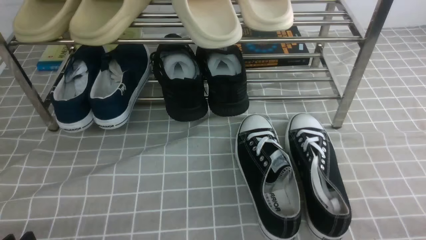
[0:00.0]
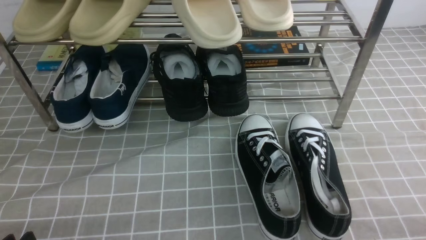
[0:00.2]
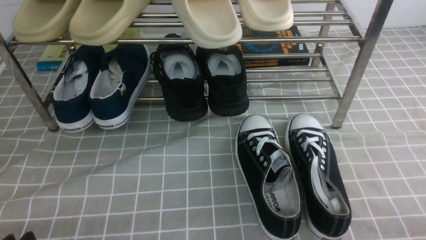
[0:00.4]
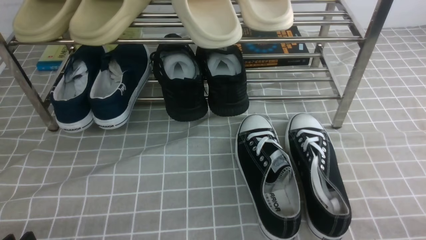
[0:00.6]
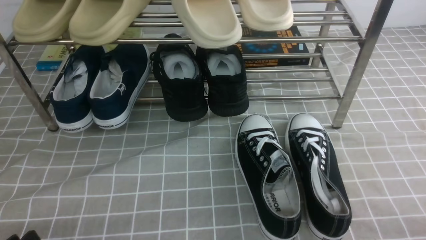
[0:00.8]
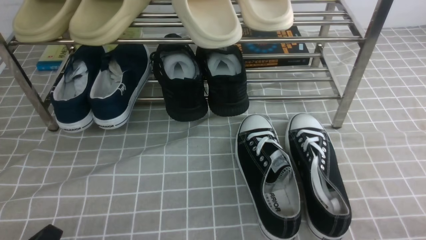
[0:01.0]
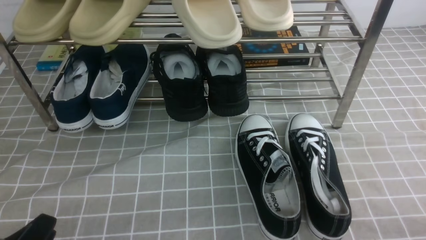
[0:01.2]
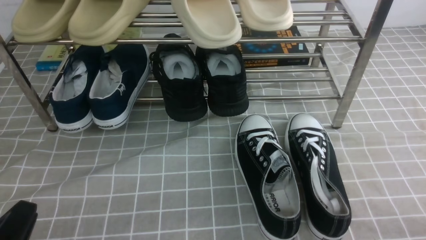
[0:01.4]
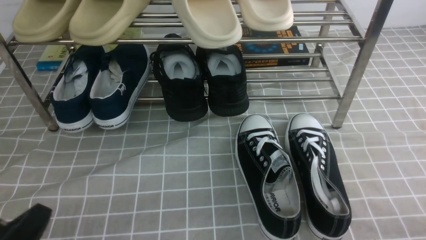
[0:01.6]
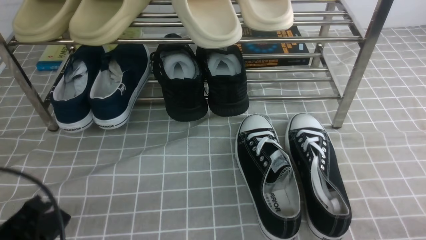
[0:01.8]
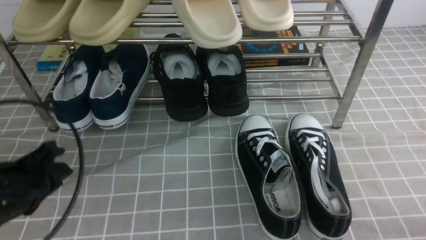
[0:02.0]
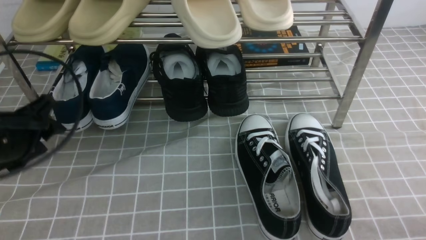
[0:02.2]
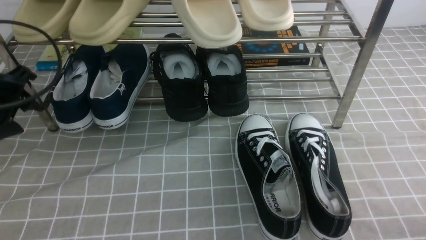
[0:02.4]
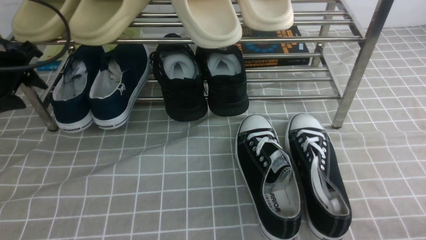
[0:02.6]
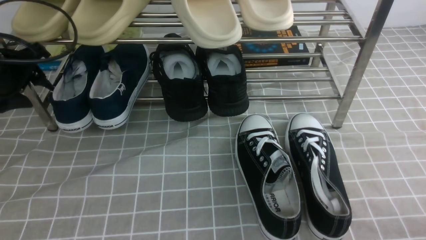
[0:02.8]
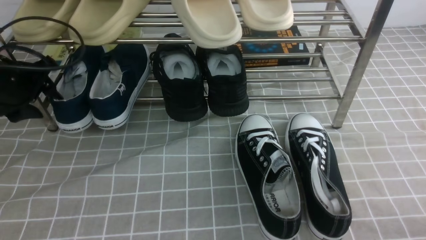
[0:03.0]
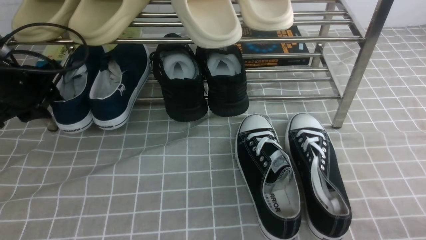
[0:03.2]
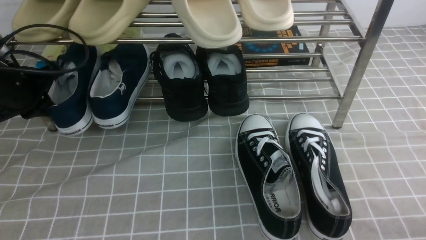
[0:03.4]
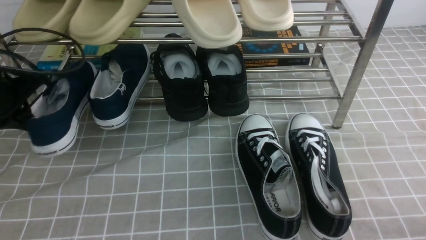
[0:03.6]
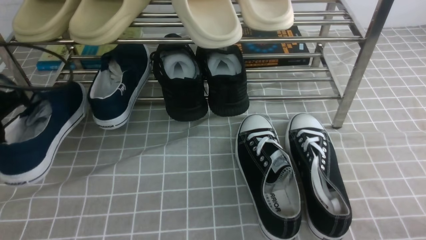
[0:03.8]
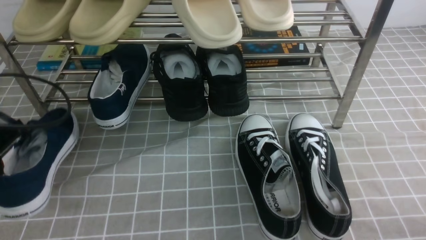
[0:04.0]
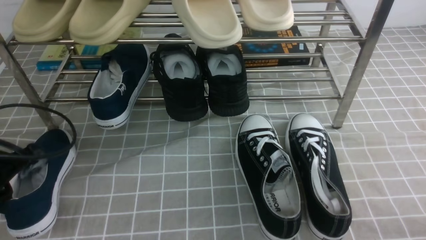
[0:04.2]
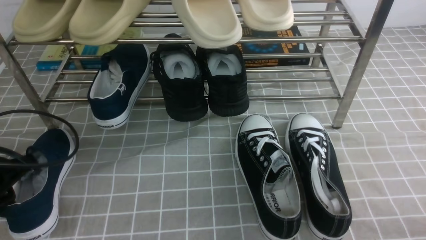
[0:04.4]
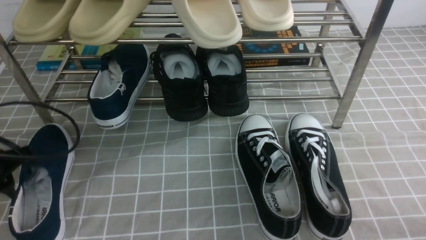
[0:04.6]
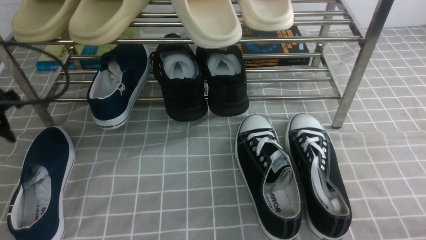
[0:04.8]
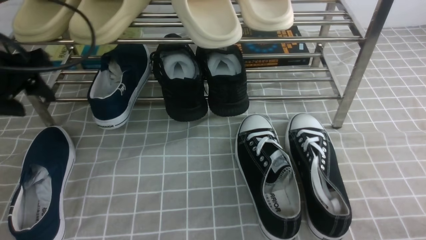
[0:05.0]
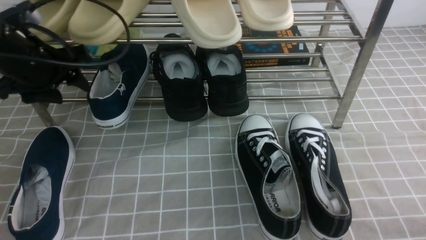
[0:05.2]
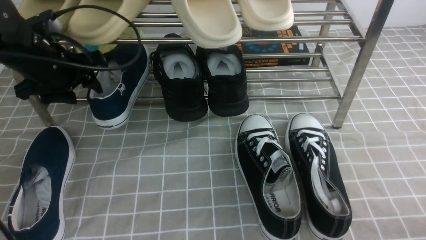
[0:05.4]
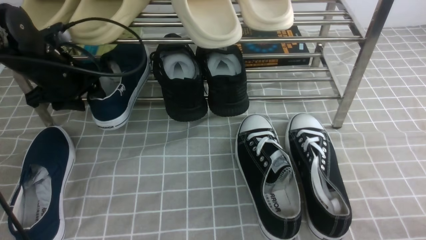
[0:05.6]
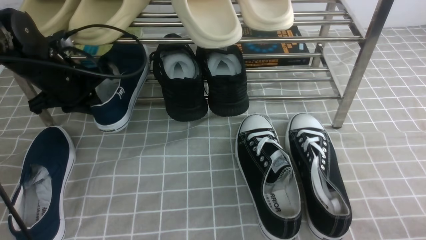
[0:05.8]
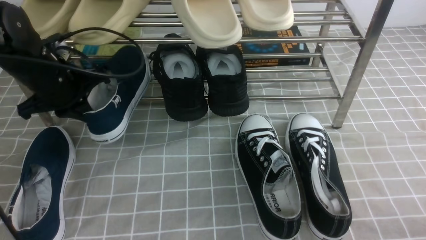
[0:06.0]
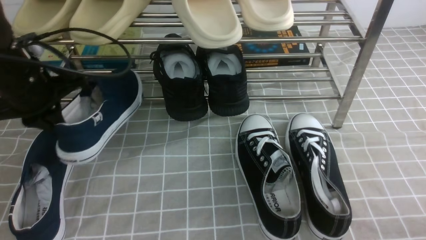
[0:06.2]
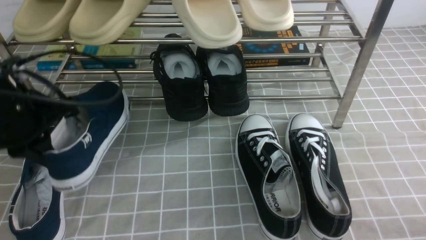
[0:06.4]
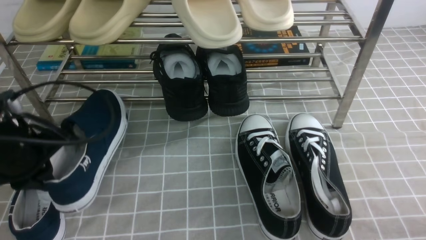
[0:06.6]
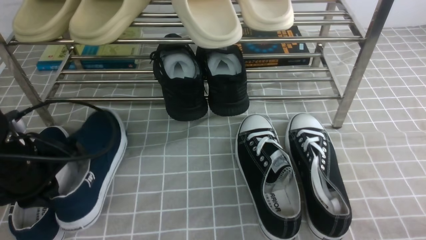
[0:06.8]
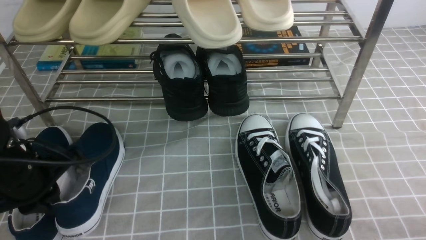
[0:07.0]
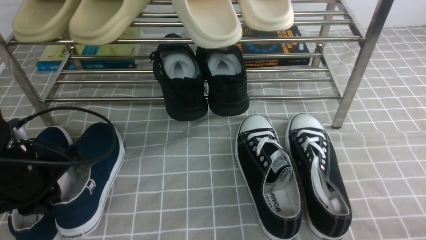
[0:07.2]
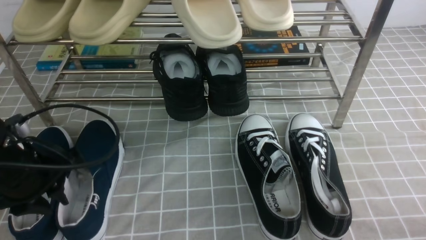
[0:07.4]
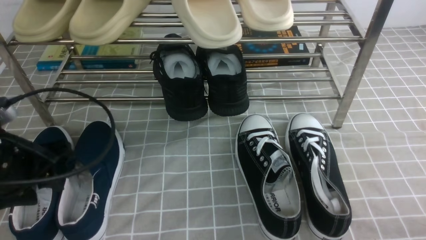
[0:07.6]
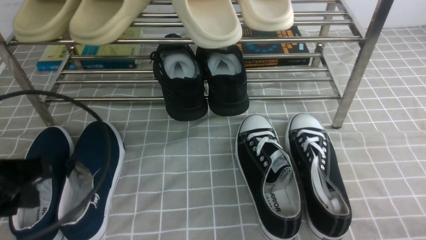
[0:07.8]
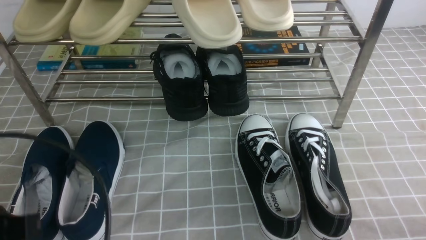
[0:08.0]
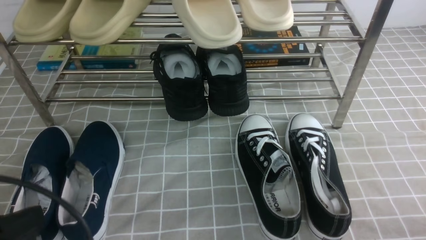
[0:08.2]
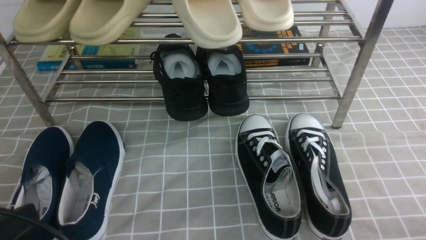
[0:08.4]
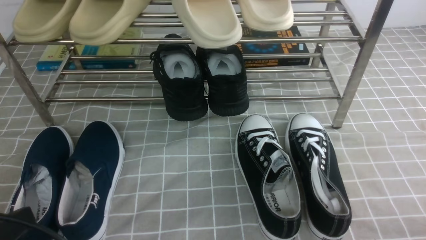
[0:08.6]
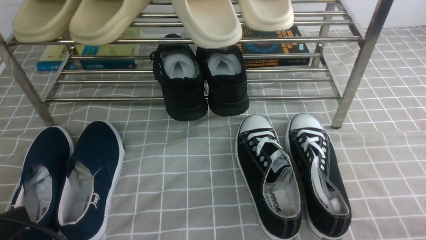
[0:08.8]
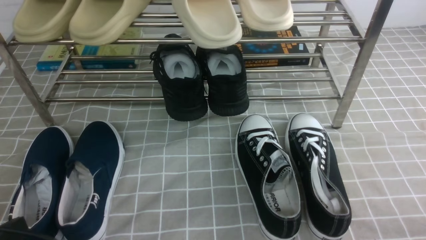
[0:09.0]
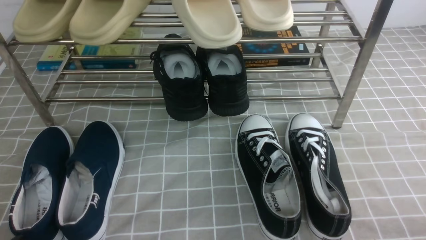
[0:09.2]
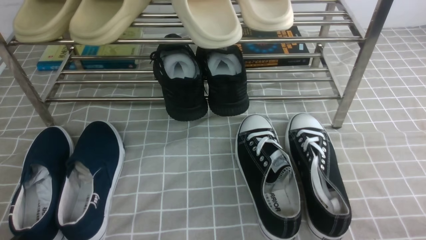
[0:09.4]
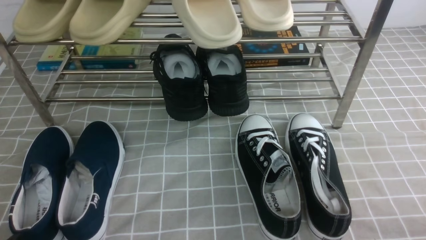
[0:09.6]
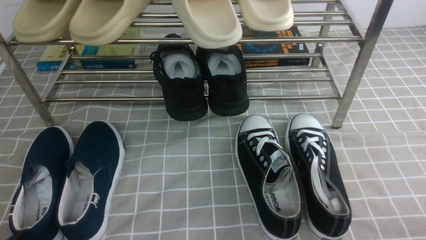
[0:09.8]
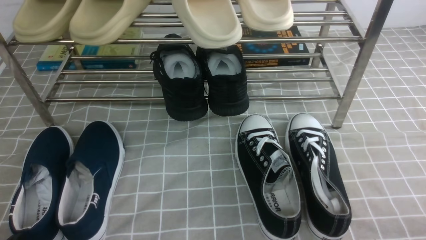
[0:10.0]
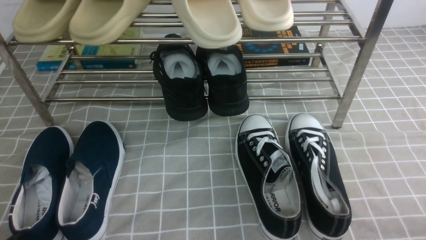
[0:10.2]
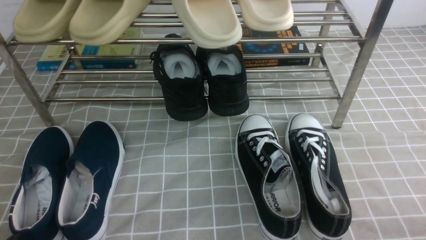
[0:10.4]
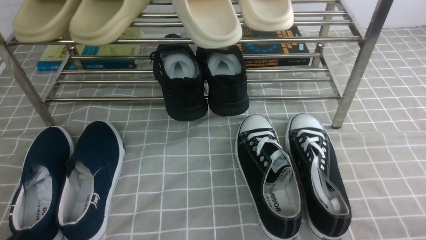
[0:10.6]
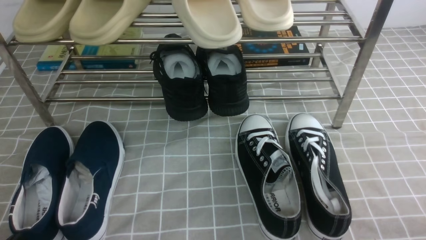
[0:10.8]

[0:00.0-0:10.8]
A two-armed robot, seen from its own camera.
Step, 0:00.0 to 0:03.4: use the left arm to clamp a shoe on the left side of the shoe rack.
Step, 0:03.6 to 0:04.6: Use your left arm to remove the clamped shoe from the shoe rack and put it down.
Step, 0:05.0 to 0:06.0: use the left arm to clamp a shoe on the left side of the shoe rack.
Step, 0:06.2 to 0:07.6: Use your left arm to remove the clamped shoe from the shoe rack and put it down.
0:00.0 to 0:01.6: The left gripper closes up.
0:01.6 to 0:03.0: The left gripper is displaced forward by some 30 cm, and opens up.
0:03.0 to 0:04.6: The left gripper goes some 10 cm backward, and closes and opens again.
0:04.6 to 0:06.2: The left gripper shifts roughly 10 cm forward and to the right, and closes its fingers.
0:06.2 to 0:07.8: The left gripper is displaced backward by some 15 cm, and opens up.
0:07.8 to 0:09.2: The left gripper moves downward and backward, roughly 15 cm, and closes its fingers.

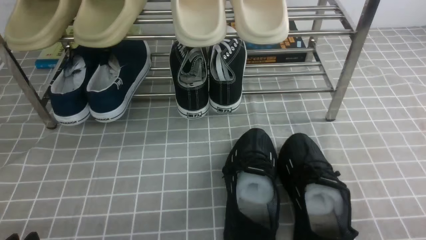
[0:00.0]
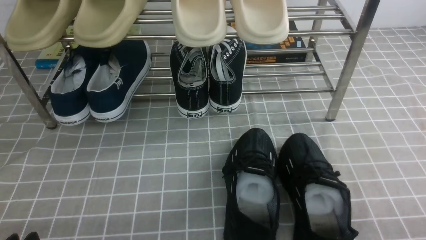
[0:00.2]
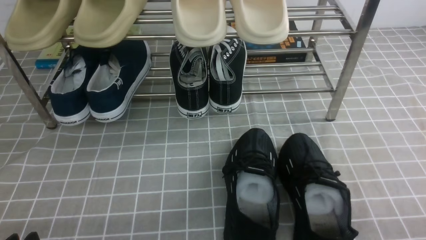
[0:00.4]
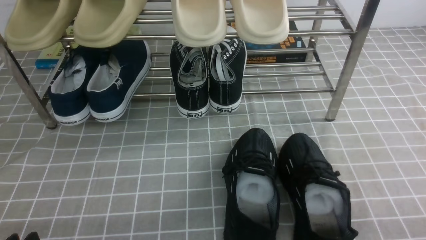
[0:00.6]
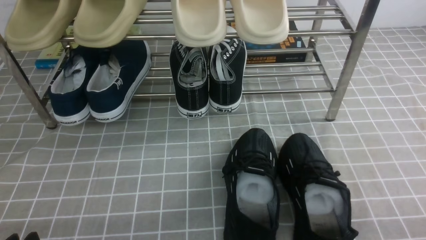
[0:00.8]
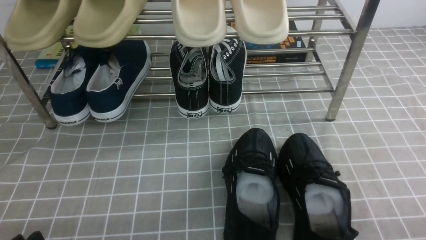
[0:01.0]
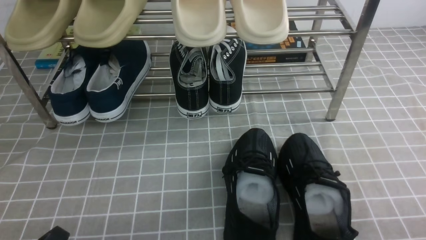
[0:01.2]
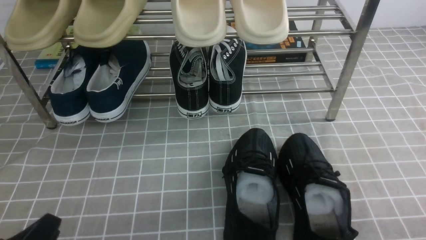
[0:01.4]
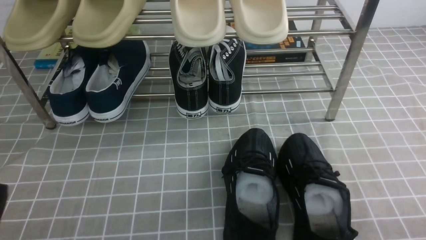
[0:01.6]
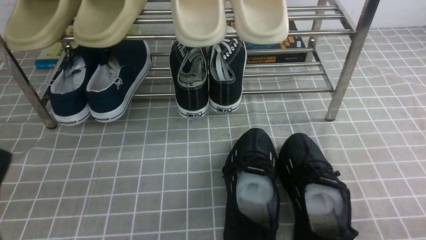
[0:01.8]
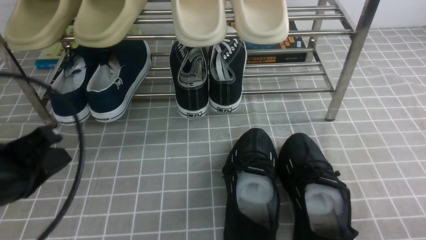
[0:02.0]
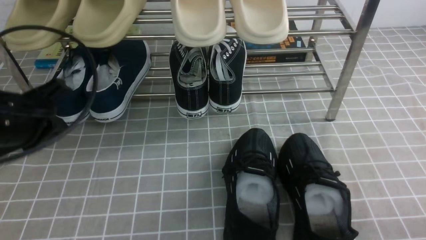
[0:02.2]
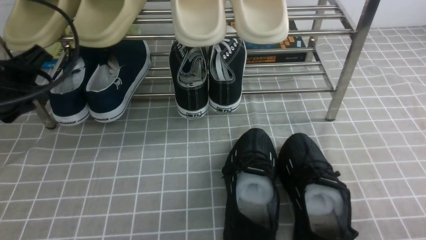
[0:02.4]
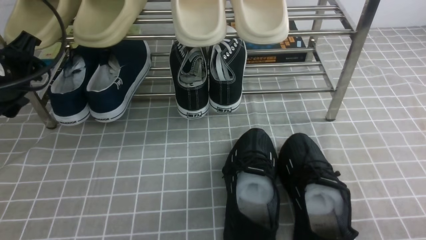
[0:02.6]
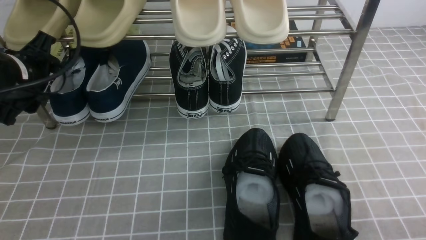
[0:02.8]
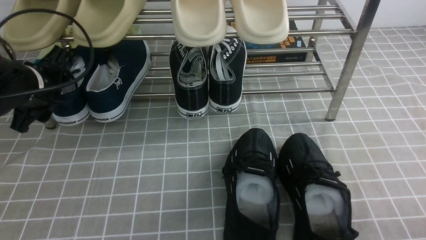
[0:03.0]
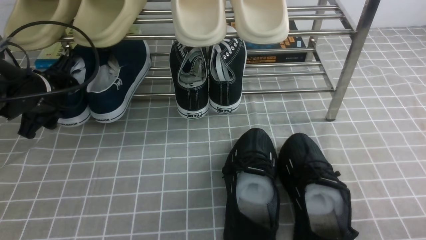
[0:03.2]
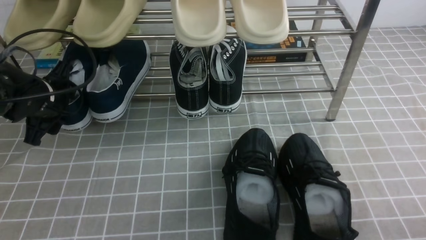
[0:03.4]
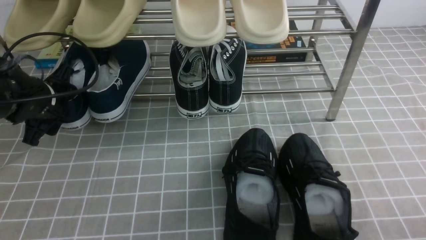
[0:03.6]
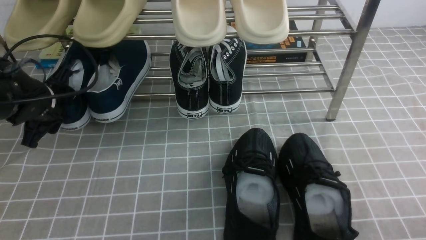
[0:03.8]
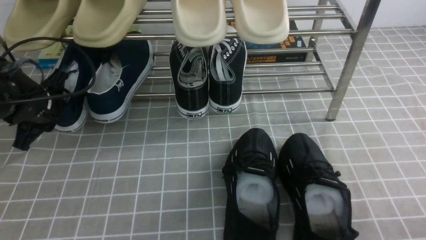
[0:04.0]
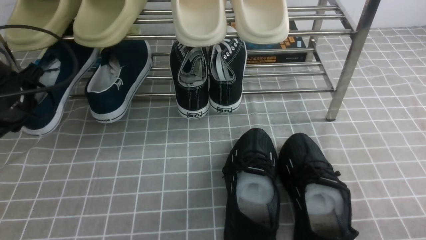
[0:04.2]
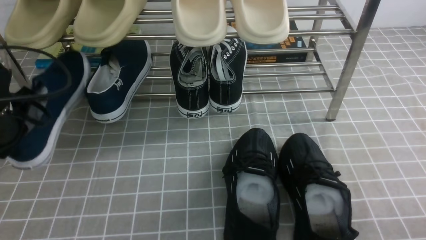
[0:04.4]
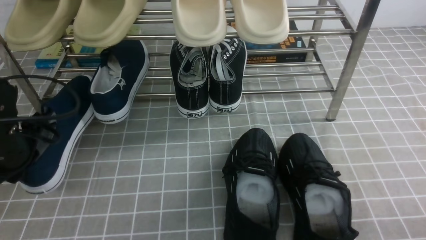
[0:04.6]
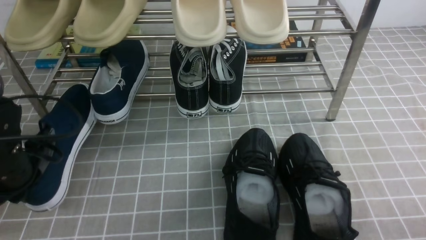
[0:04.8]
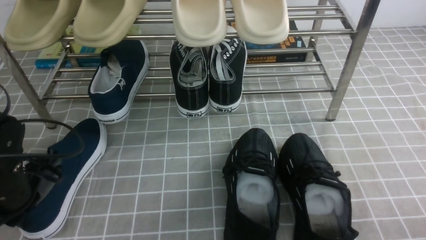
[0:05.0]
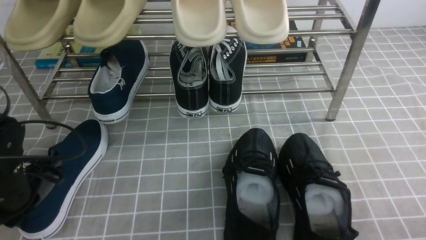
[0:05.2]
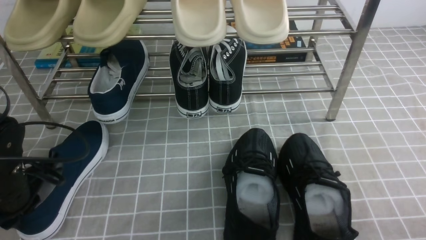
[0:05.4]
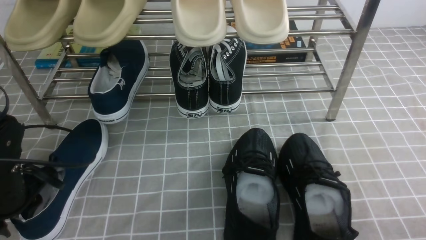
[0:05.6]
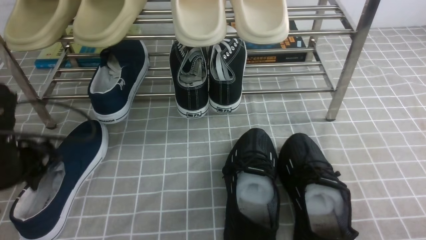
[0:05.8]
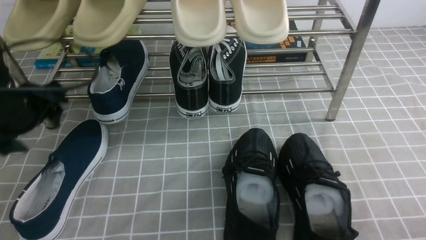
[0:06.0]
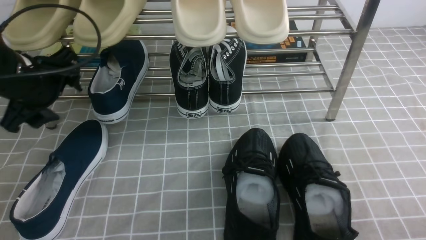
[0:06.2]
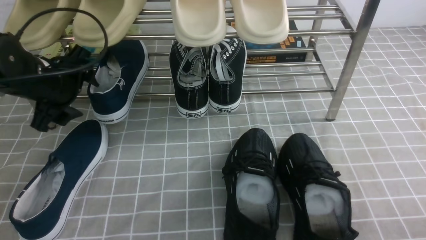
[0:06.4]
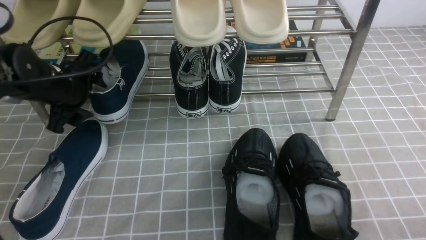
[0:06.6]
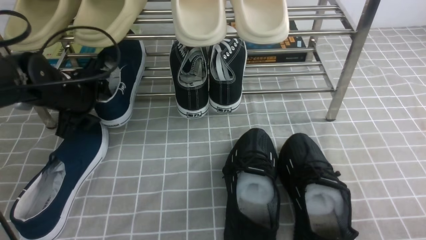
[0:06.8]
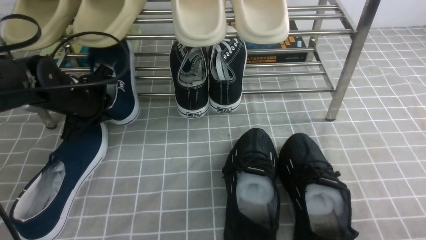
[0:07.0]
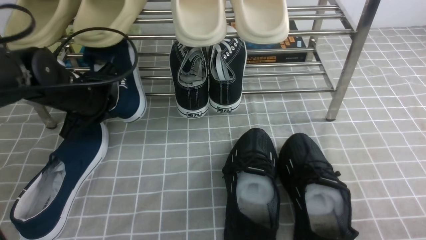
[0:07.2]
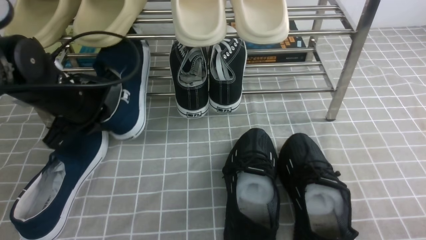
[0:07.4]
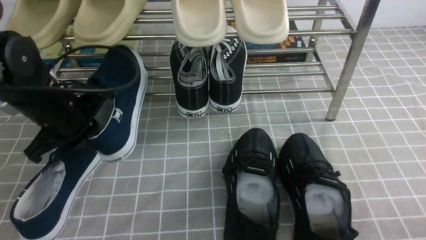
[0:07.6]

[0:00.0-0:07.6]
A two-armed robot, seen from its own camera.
Step, 0:00.0 to 0:03.6: use the left arm to clamp a shoe on the left side of the shoe rack.
Step, 0:03.8 to 0:05.8: Use your left arm to remove the clamped shoe from the shoe rack and put it down.
Step, 0:06.0 to 0:07.2: use the left arm to clamp a shoe on the left side of the shoe rack.
0:00.0 to 0:01.6: The left gripper heads upward, covering some 5 cm.
0:01.6 to 0:03.0: The left gripper is displaced forward by roughly 25 cm, and opens up.
0:03.0 to 0:04.6: The left gripper travels backward by approximately 5 cm, and closes.
0:04.6 to 0:06.0: The left gripper opens up.
0:06.0 to 0:07.6: The left gripper goes roughly 5 cm to the right, and closes.
